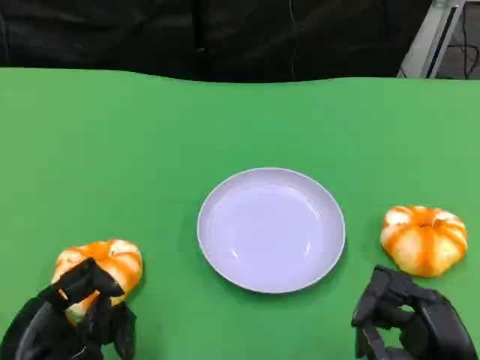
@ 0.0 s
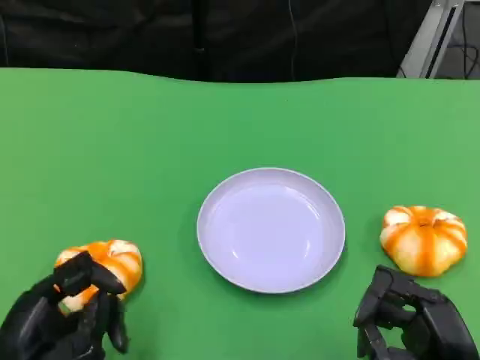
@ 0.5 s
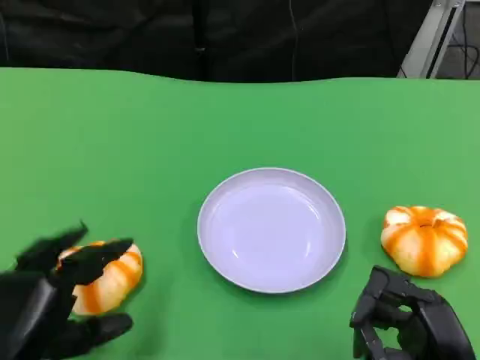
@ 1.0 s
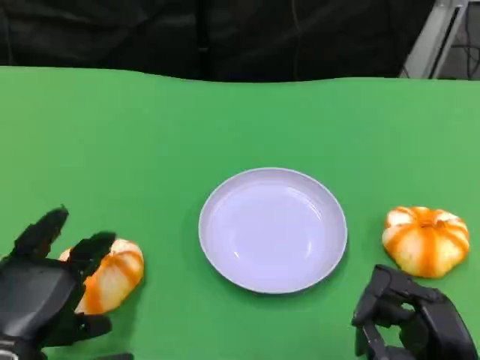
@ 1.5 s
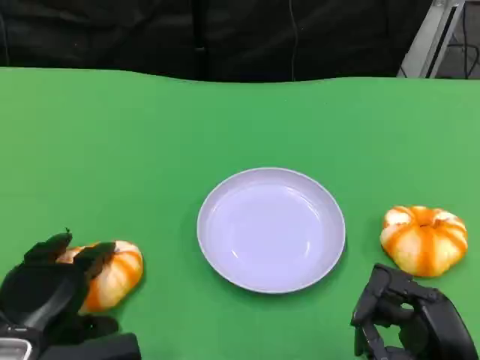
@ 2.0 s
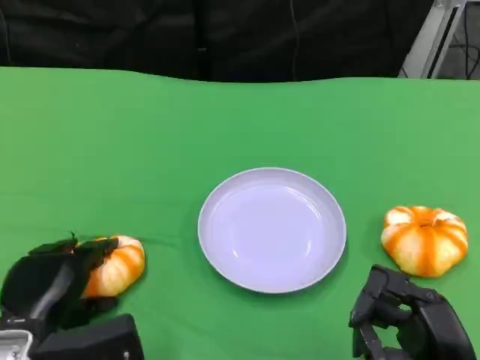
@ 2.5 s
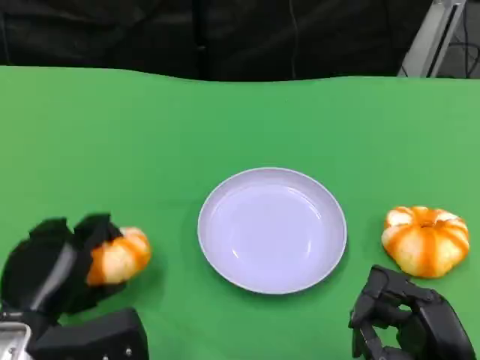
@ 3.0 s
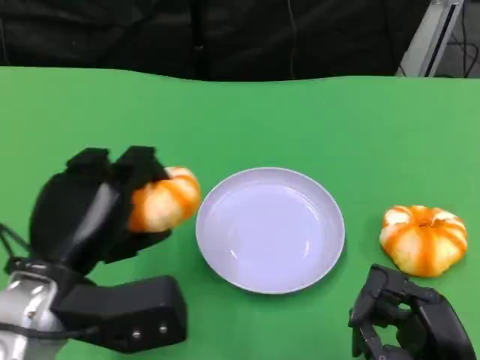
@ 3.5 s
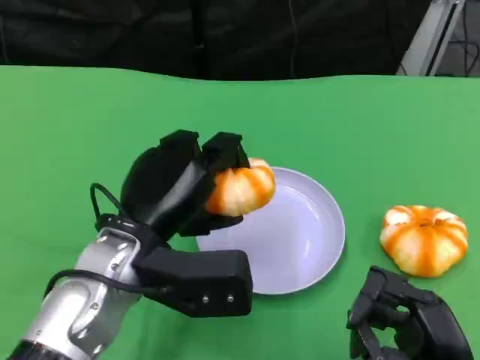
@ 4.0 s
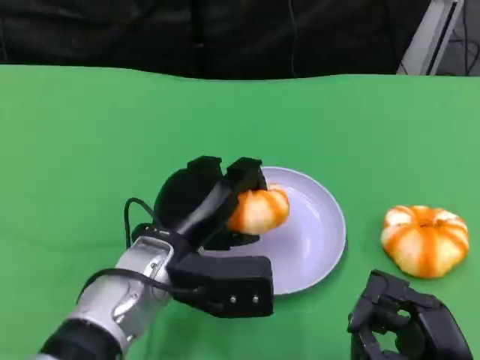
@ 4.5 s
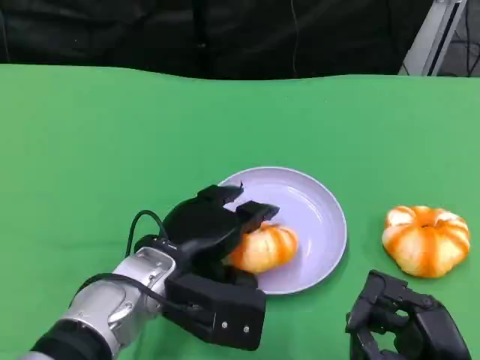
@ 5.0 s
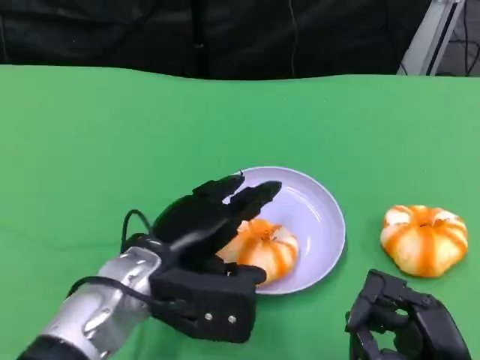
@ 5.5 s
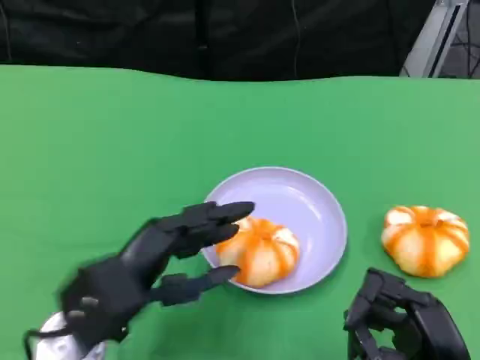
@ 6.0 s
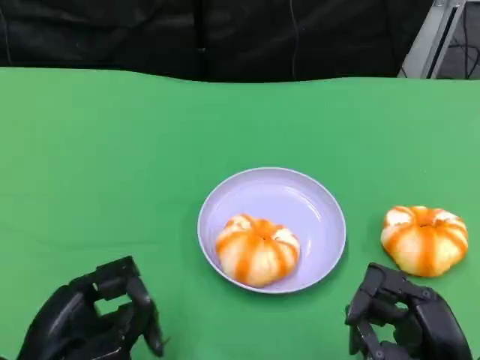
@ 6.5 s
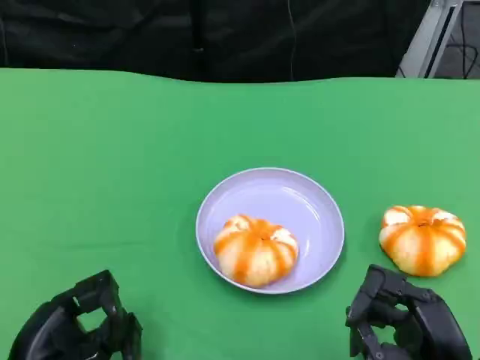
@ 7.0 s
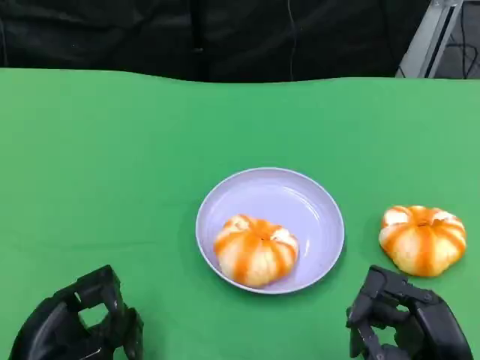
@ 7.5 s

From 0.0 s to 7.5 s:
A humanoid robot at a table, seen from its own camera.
Task of the whole recording: Grasp the bread from the table and place it into the plate.
From 0.0 s to 2.0 s: The left hand moves forward, roughly 5 cm.
From 2.0 s to 4.0 s: The left hand travels to the right, upward and forward by about 15 cm.
From 5.5 s to 7.5 s: The left hand travels to the left, backward and downward by roughly 15 cm.

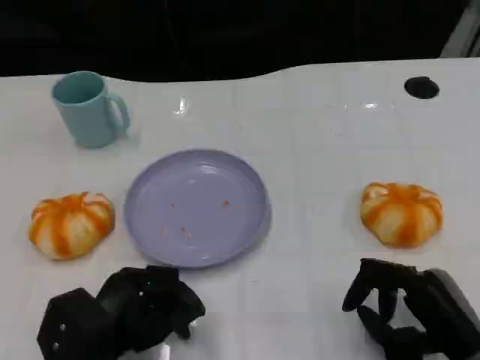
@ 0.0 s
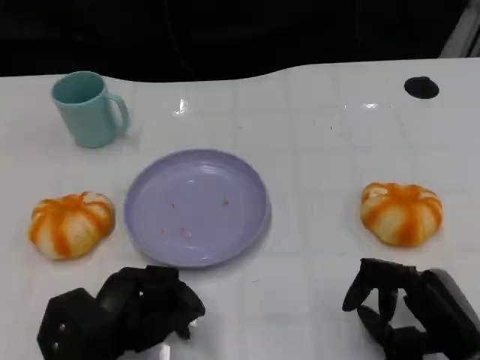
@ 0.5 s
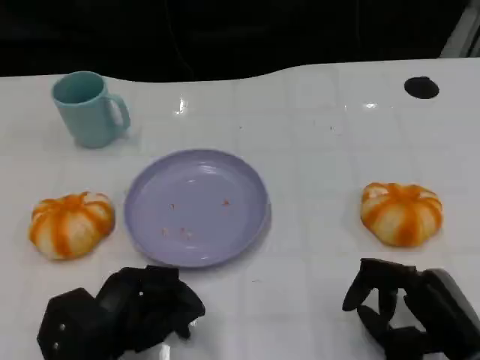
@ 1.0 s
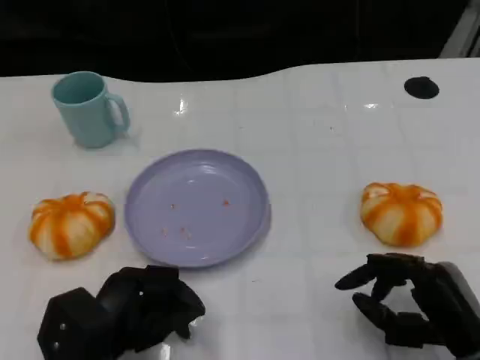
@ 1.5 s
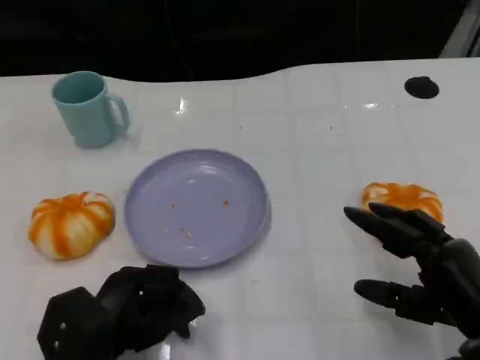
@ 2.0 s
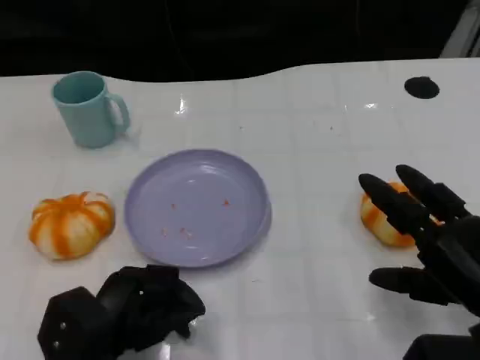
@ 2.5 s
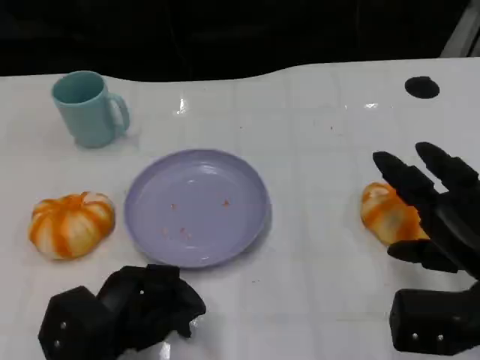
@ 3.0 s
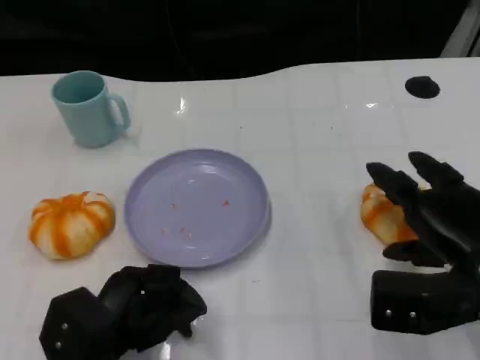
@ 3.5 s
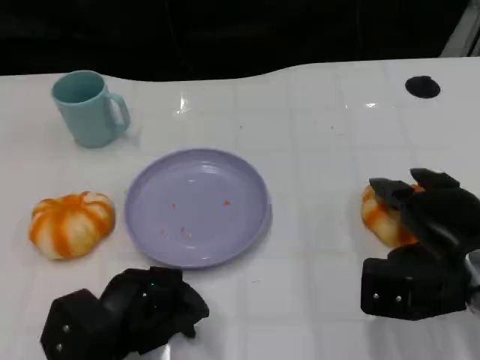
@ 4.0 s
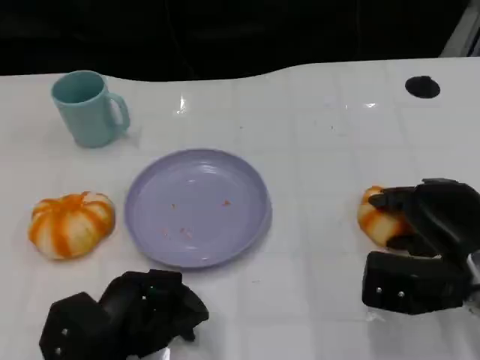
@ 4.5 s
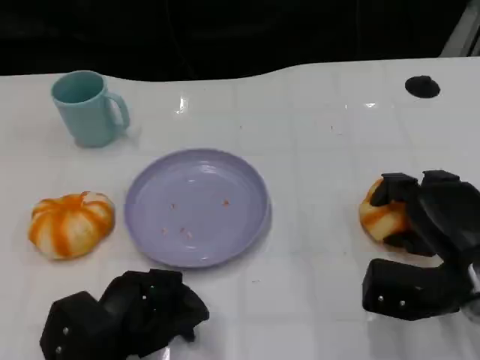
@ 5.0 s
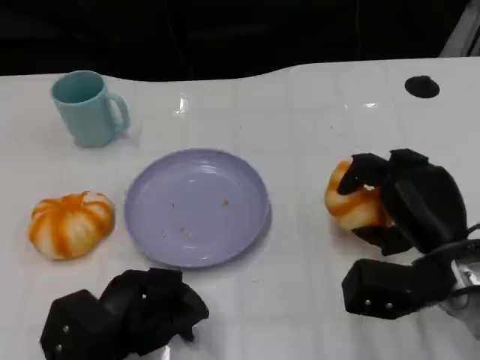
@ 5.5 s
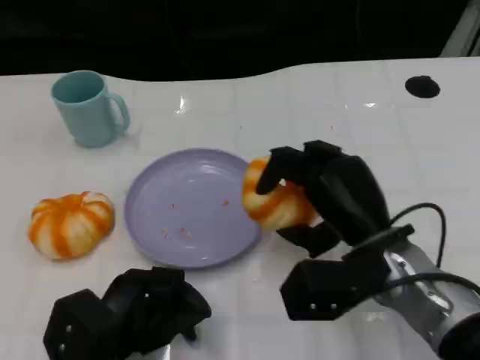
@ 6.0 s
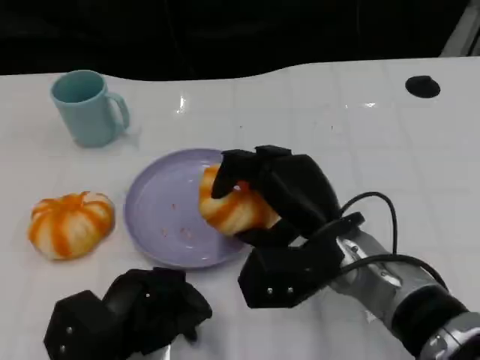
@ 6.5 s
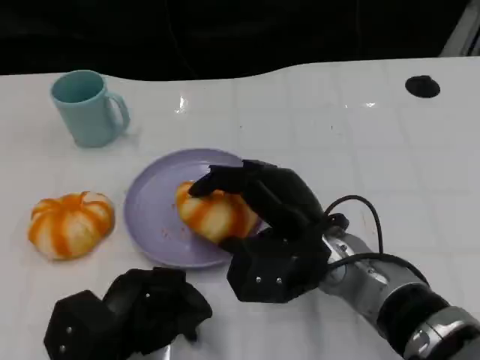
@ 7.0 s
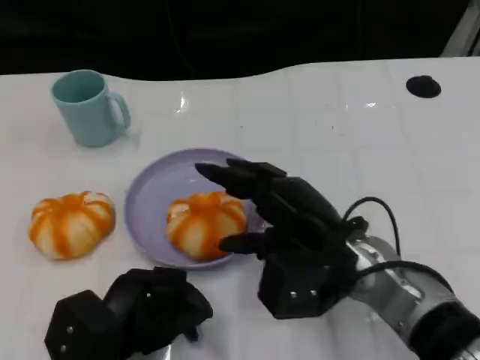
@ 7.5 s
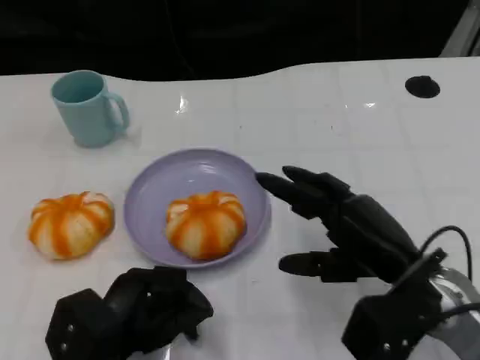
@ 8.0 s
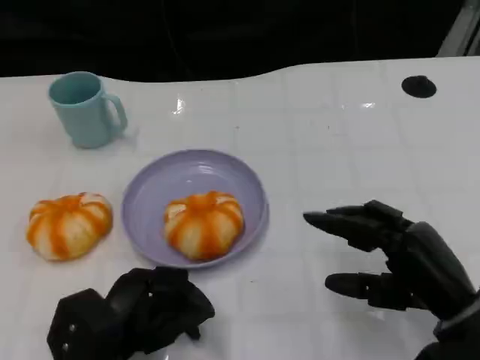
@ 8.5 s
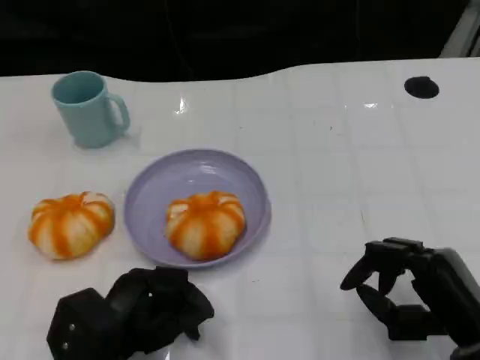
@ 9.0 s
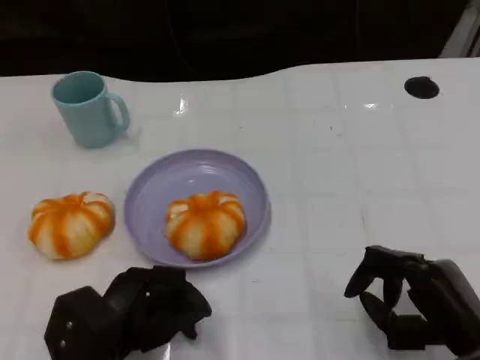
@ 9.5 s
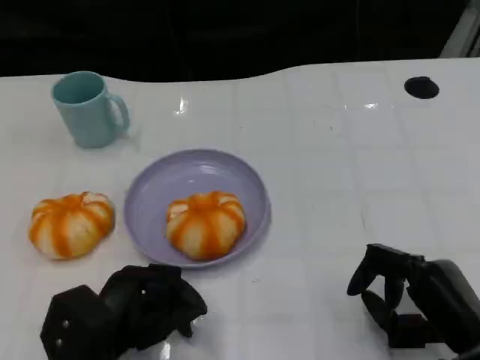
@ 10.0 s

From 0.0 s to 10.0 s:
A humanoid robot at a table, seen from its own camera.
Task of the whole recording: Grasp the bread from the table and place it into the plate.
From 0.0 s to 2.0 s: The hands stay close to where they were, moving slightly.
From 2.0 s to 4.0 s: The right hand moves forward, approximately 5 cm.
From 4.0 s to 6.0 s: The right hand is displaced to the left by some 10 cm.
From 6.0 s to 8.0 s: The right hand ends up about 5 cm from where it was.
From 8.0 s to 10.0 s: The right hand travels backward and to the right by some 10 cm.

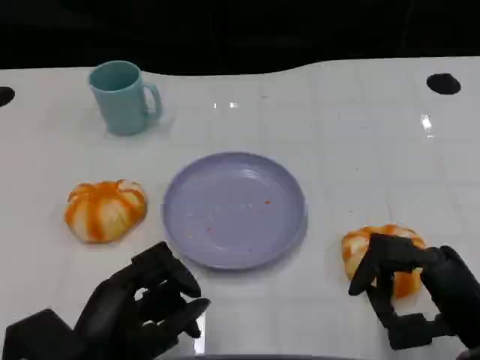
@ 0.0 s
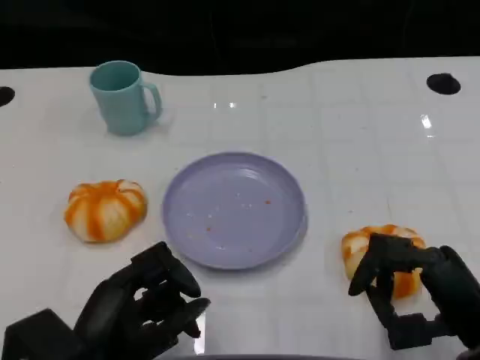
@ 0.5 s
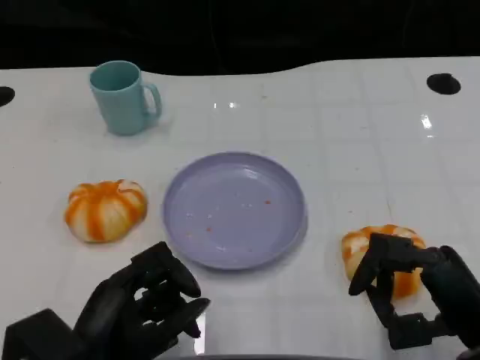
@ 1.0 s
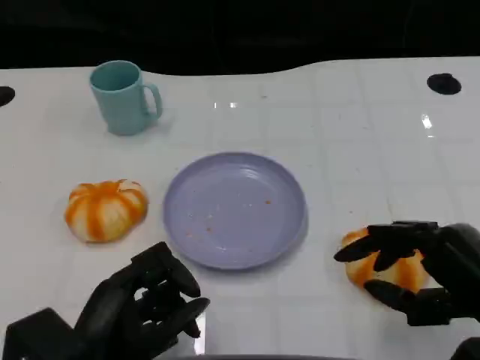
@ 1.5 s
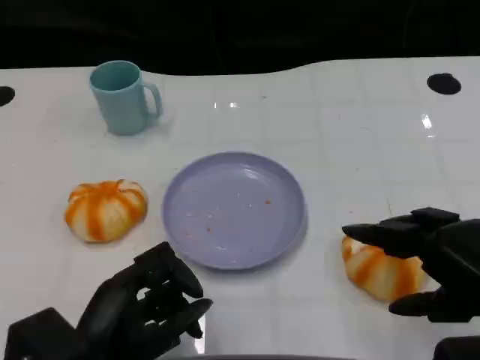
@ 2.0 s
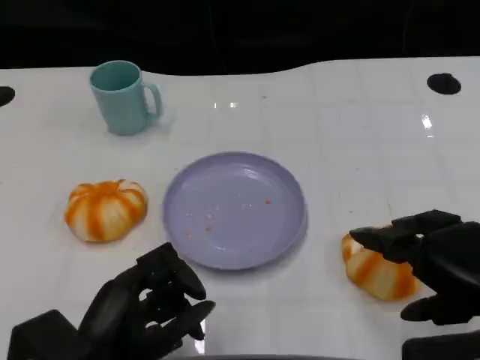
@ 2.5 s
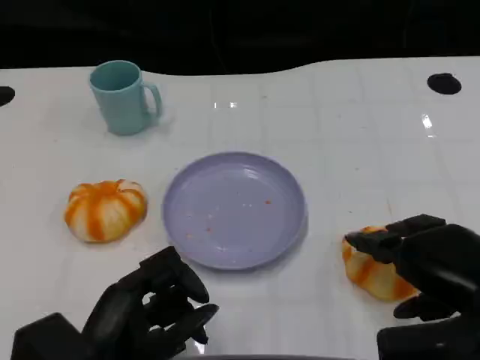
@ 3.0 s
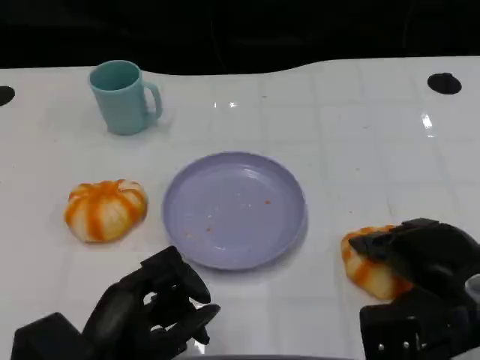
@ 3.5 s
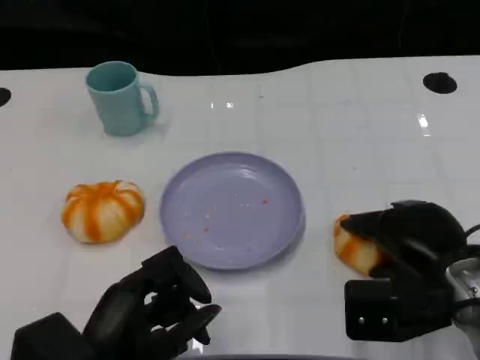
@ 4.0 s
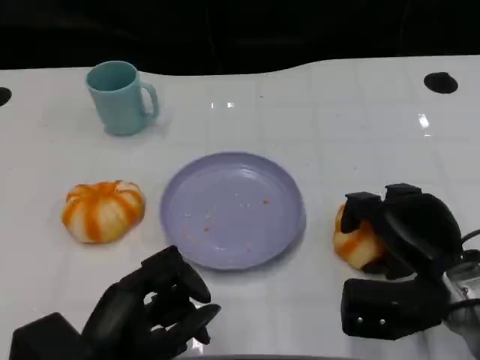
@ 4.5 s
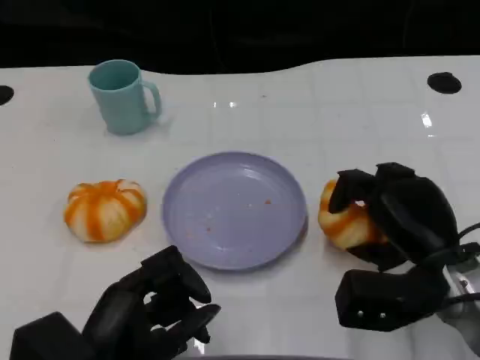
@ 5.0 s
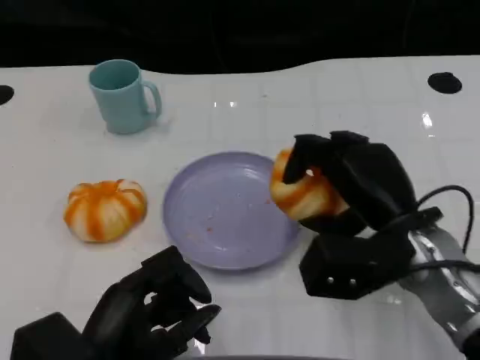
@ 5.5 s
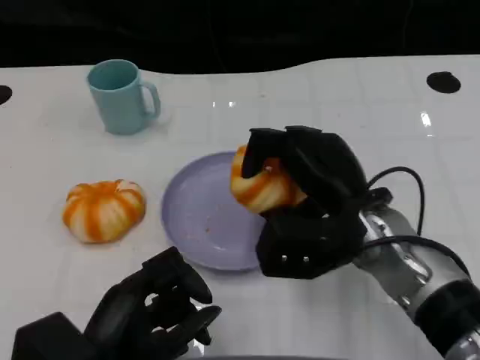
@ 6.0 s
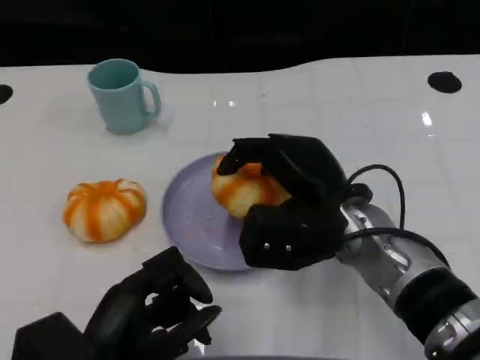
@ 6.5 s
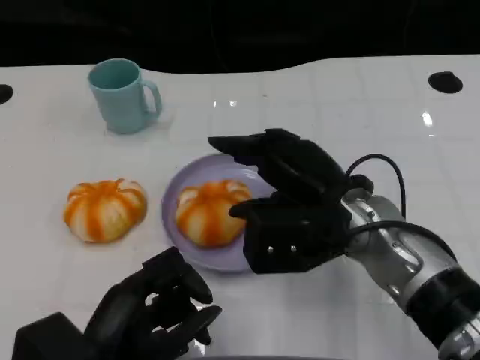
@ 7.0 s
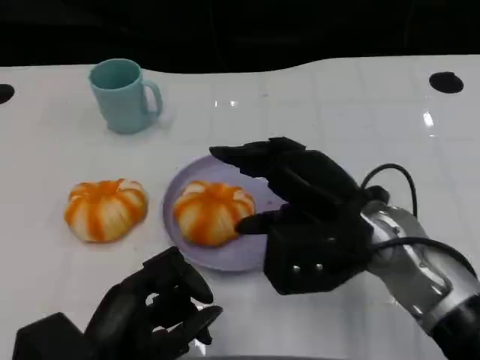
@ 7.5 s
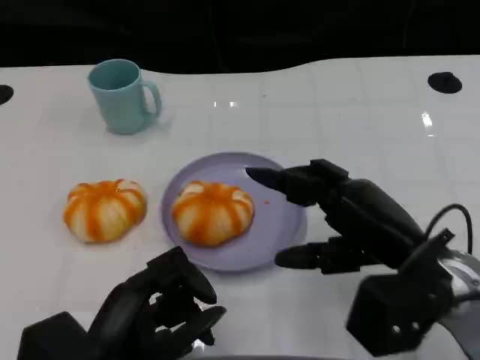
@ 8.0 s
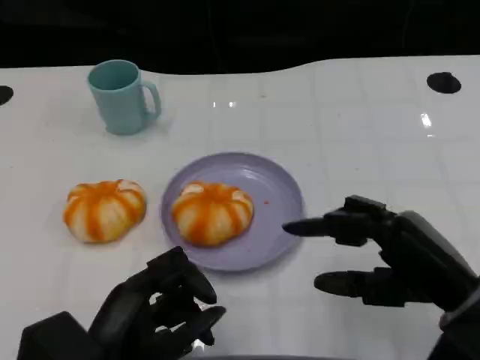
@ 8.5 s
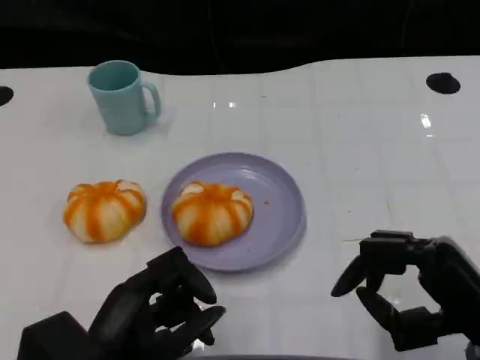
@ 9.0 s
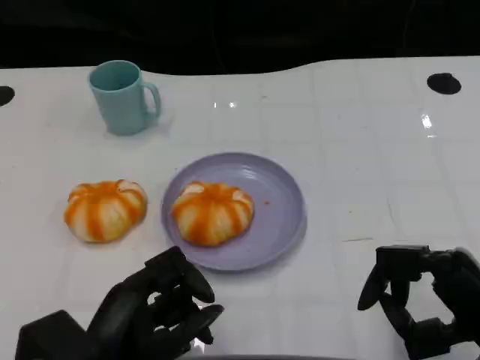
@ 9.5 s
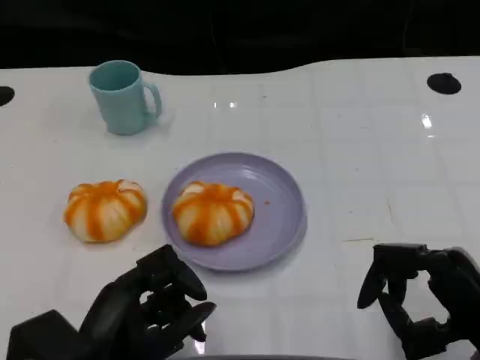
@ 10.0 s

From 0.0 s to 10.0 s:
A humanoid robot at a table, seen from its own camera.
Task of the whole recording: Grasp the bread from the table and place it into the plate.
From 0.0 s to 2.0 s: The right hand is displaced upward by about 10 cm.
From 2.0 s to 4.0 s: The right hand is displaced forward and downward by roughly 10 cm.
From 4.0 s to 6.0 s: The right hand moves to the left, approximately 10 cm.
From 6.0 s to 8.0 s: The right hand shifts approximately 10 cm to the right and backward.
From 8.0 s to 10.0 s: The right hand moves backward and to the right, some 10 cm.
